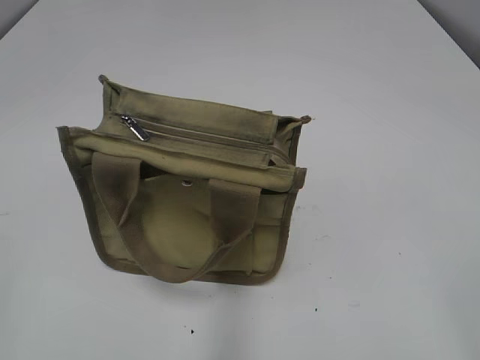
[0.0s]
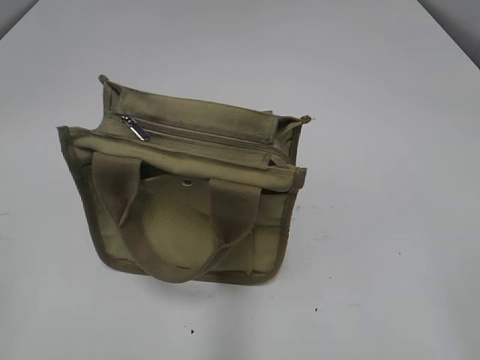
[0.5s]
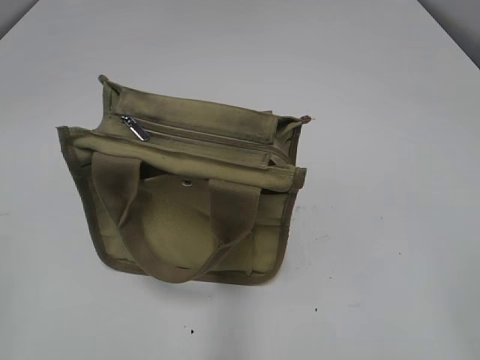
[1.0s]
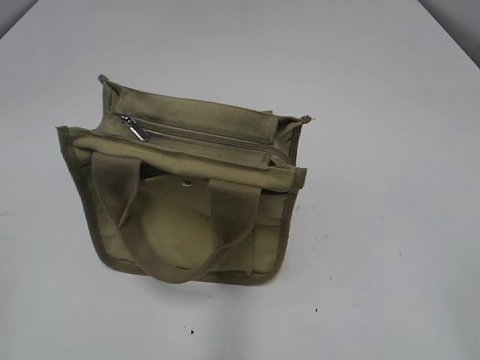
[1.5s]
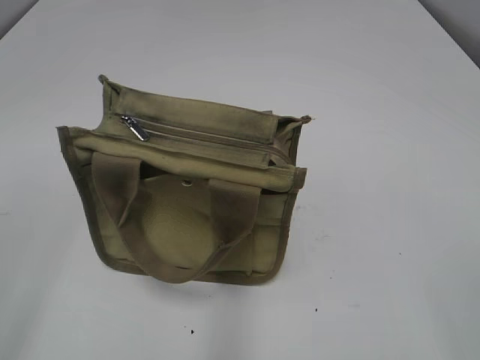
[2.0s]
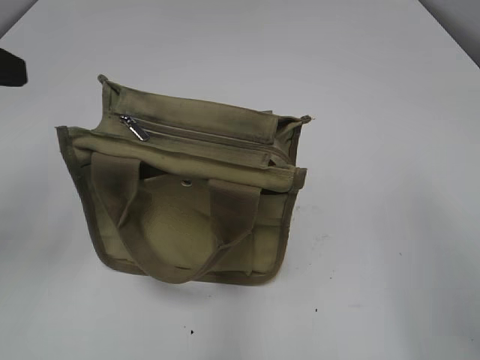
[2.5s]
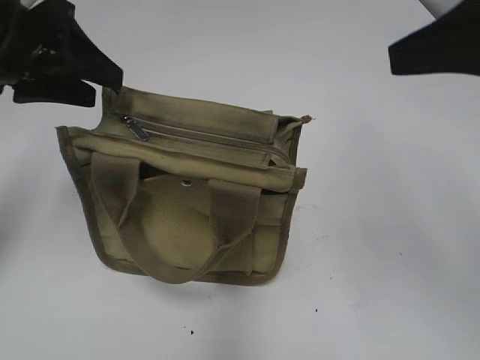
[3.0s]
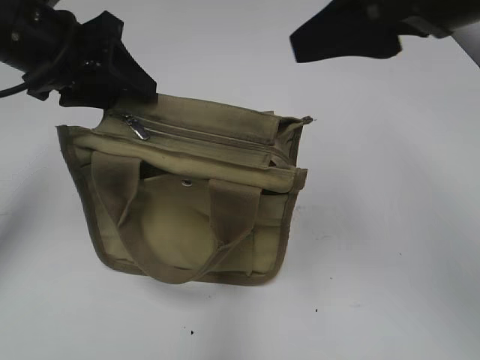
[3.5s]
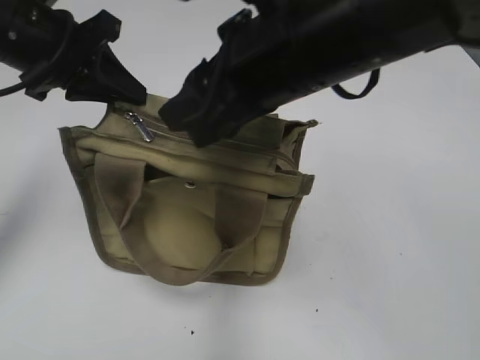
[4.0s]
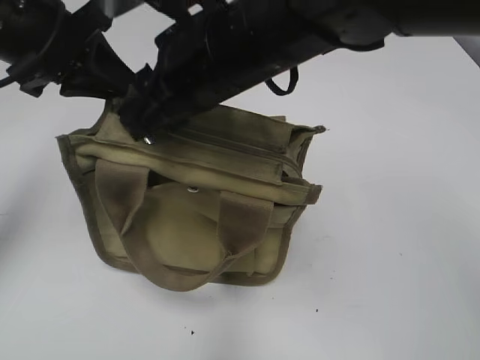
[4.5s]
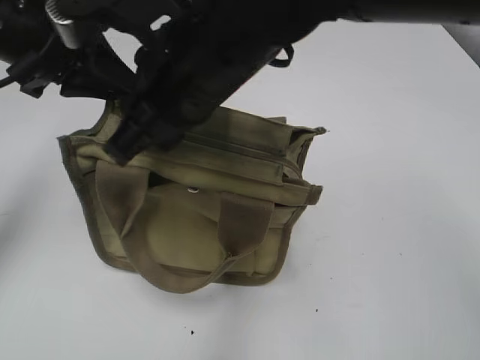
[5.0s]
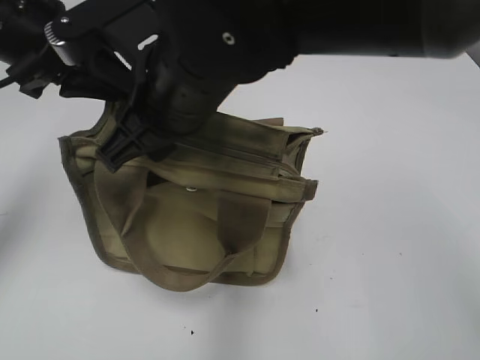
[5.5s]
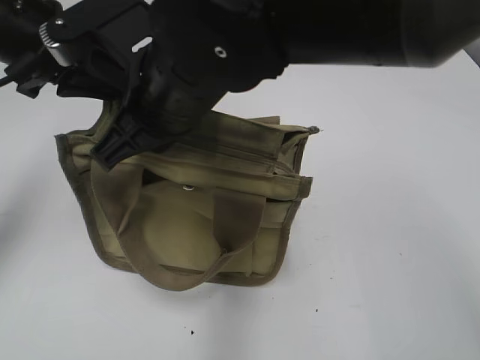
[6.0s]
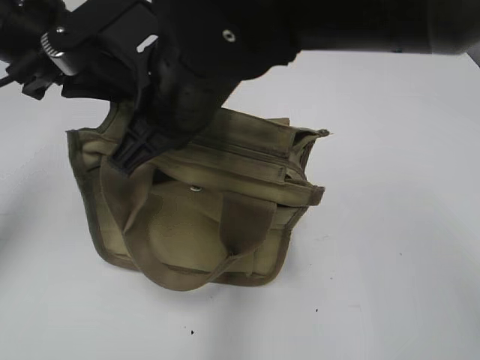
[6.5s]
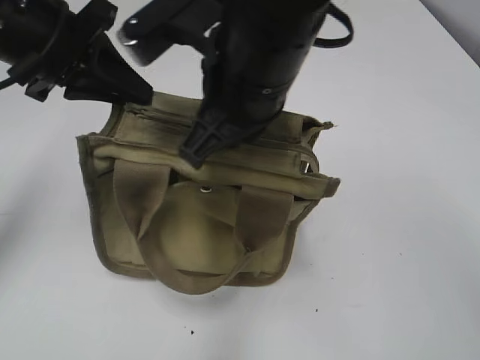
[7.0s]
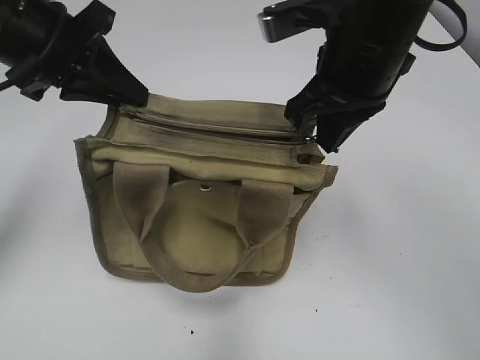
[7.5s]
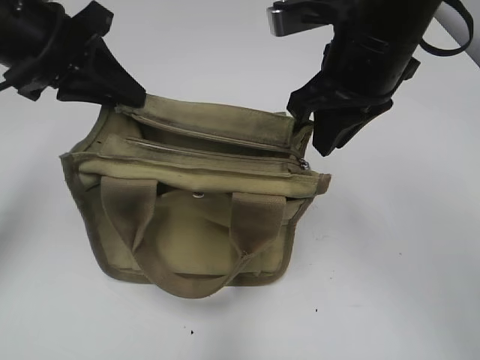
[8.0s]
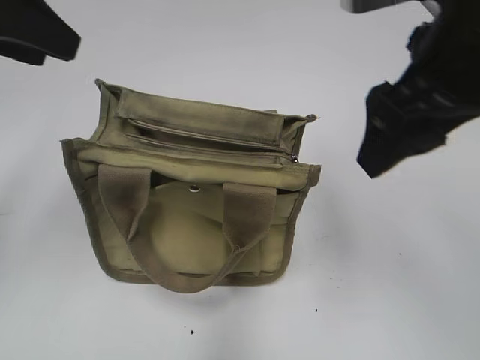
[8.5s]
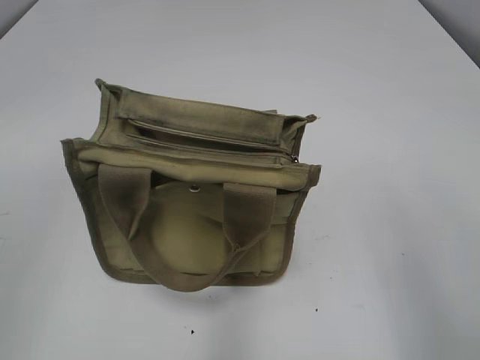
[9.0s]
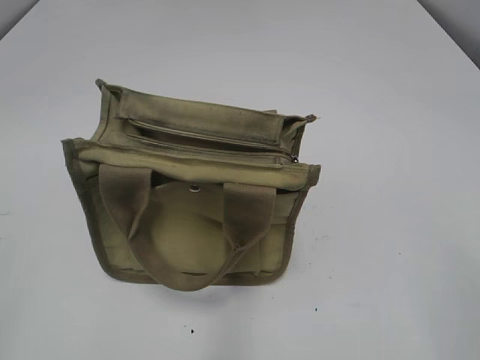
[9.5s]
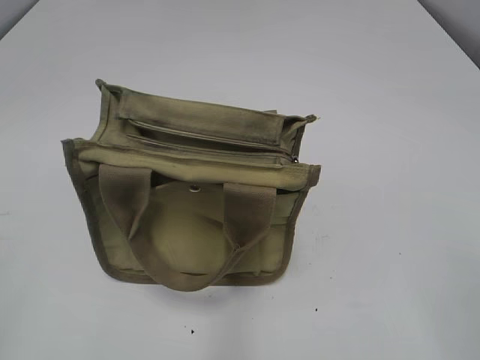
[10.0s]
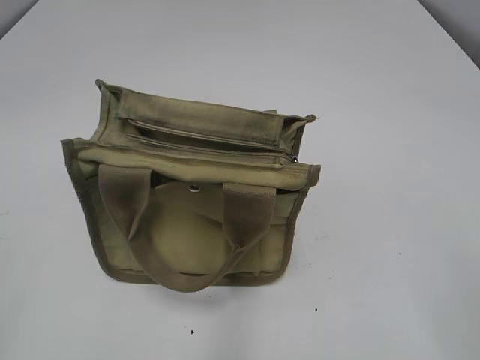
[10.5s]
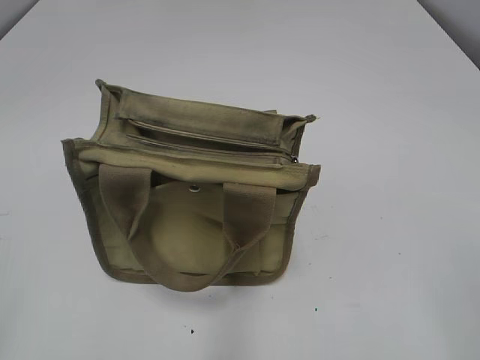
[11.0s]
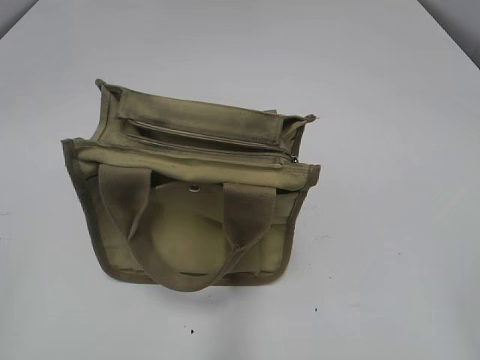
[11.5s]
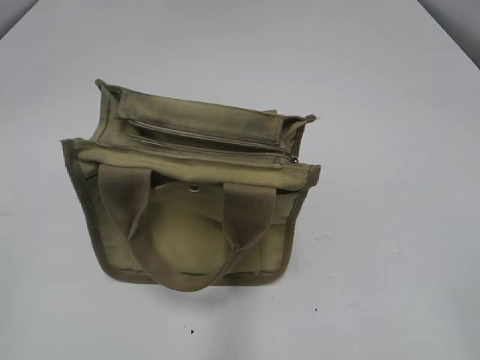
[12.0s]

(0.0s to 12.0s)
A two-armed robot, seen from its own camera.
Step, 0.0s - 7.5s: Pull open the zipper with your right hand.
2.0s - 4.0s: The left gripper shifts some 25 cm forward and to the right, and closes up; the right gripper heads forward and to the left, covering roughly 35 cm, and closes up.
4.0s - 6.0s: The right gripper is displaced to the left by some 10 cm, and closes its fingers.
6.0s - 8.0s: The right gripper shifts about 15 cm to the right, and opens.
8.0s - 10.0s: The right gripper shifts approximately 35 cm backward and to the right. Meanwhile the left gripper shifts roughly 35 cm backward and to the left, and opens.

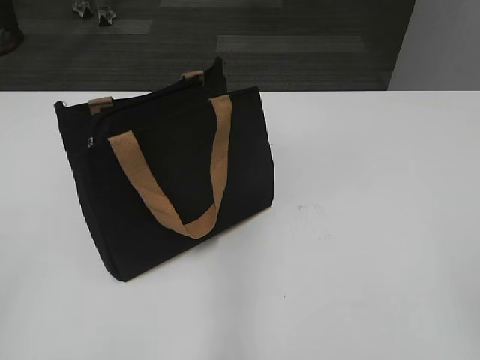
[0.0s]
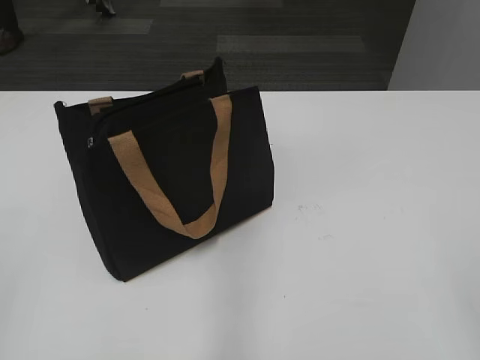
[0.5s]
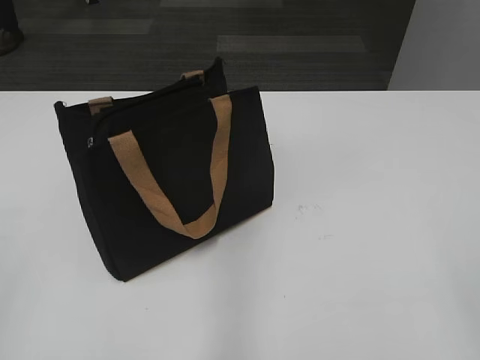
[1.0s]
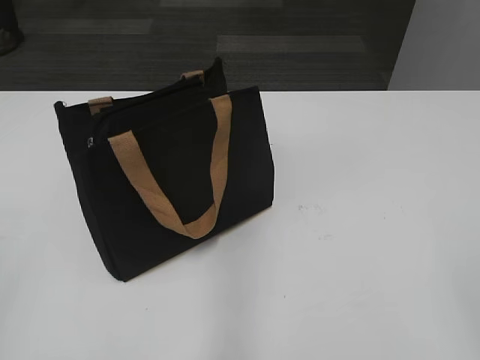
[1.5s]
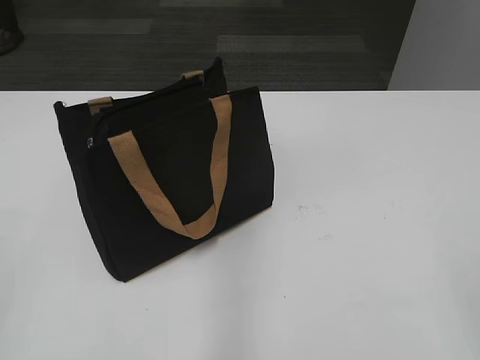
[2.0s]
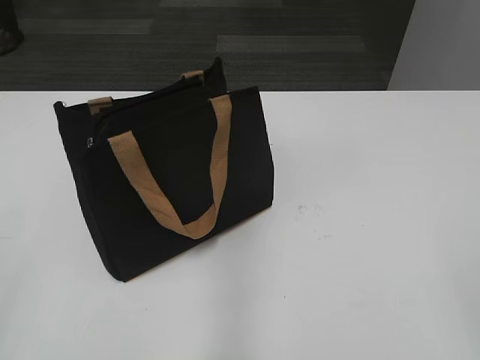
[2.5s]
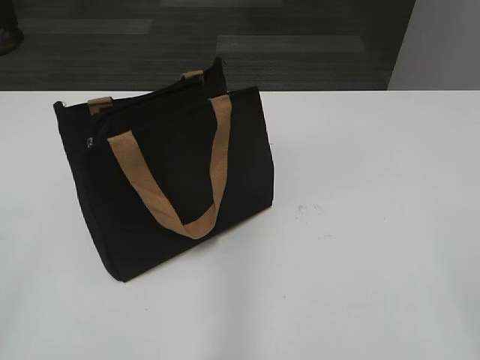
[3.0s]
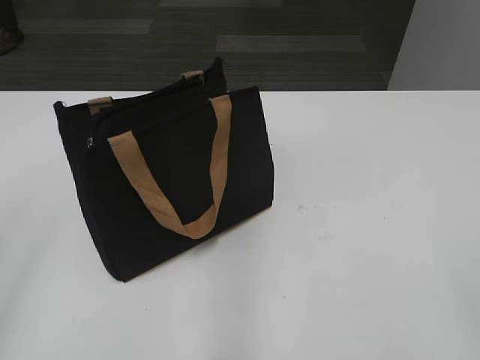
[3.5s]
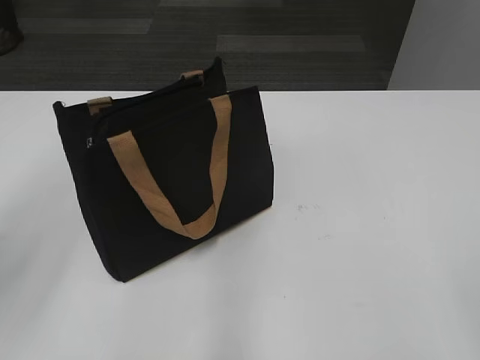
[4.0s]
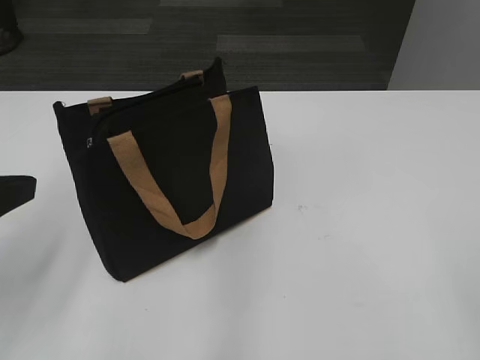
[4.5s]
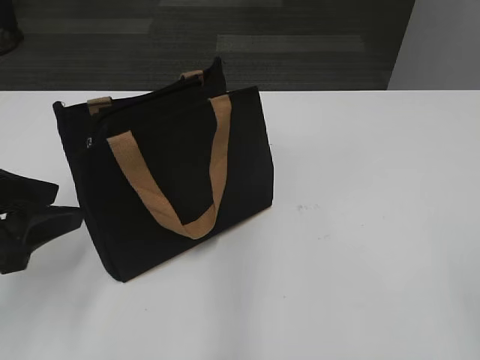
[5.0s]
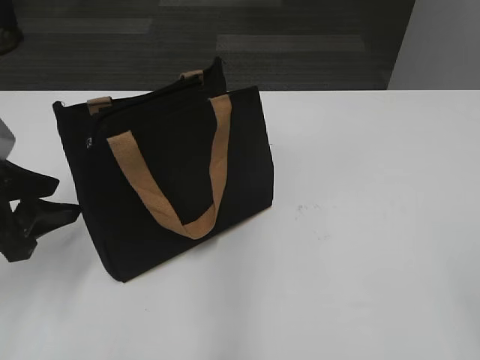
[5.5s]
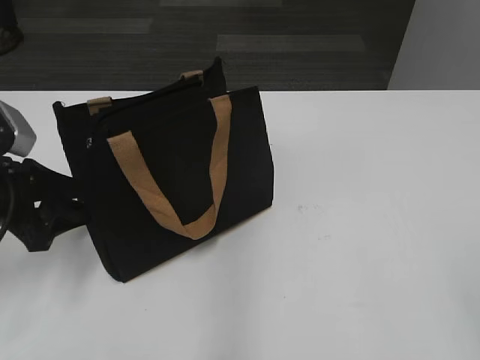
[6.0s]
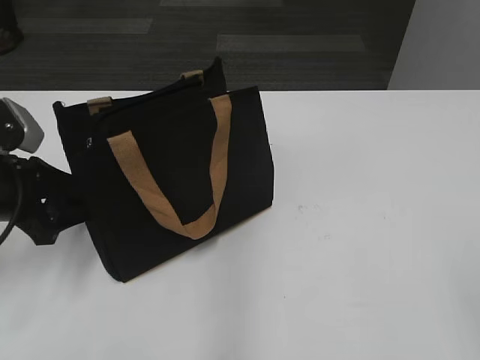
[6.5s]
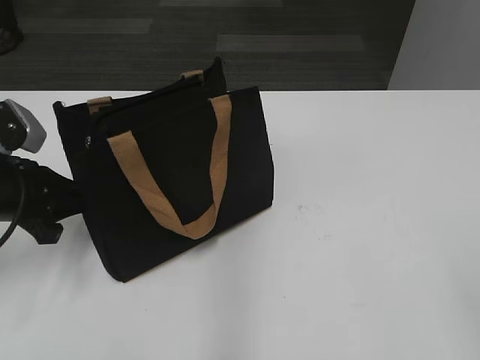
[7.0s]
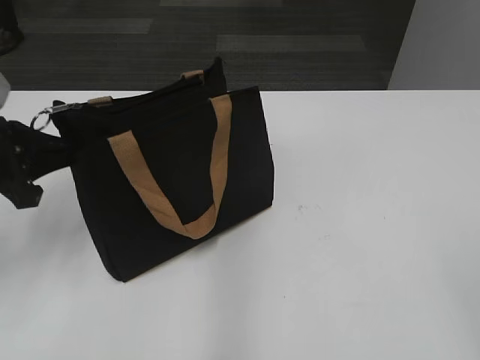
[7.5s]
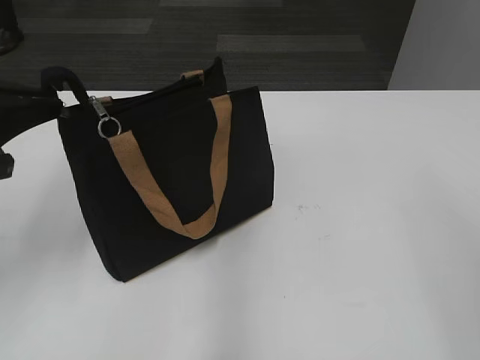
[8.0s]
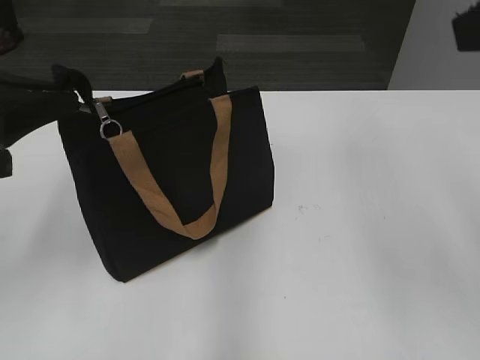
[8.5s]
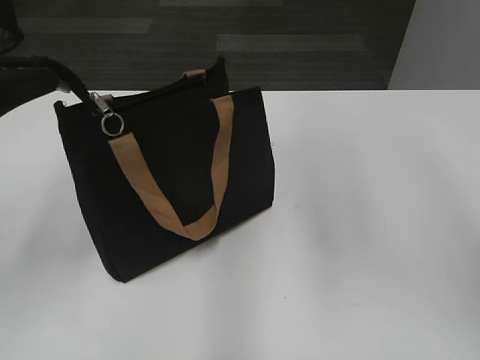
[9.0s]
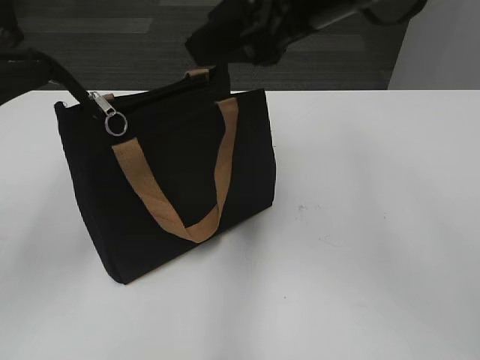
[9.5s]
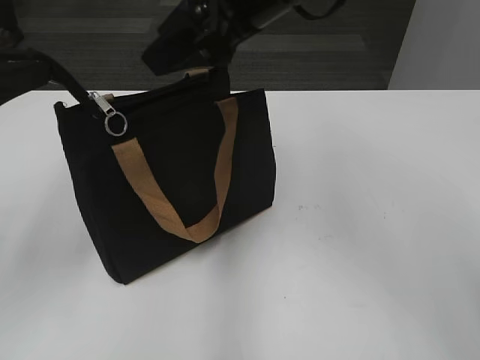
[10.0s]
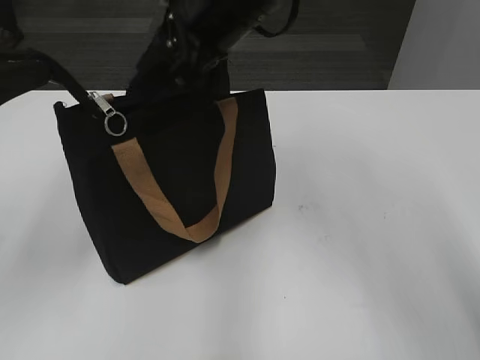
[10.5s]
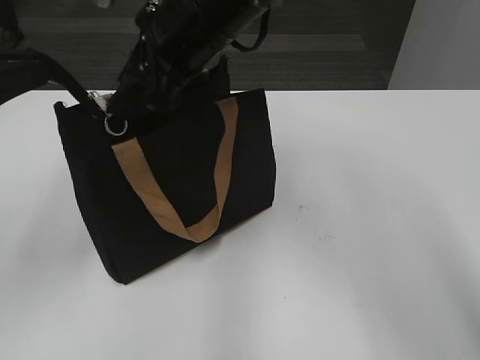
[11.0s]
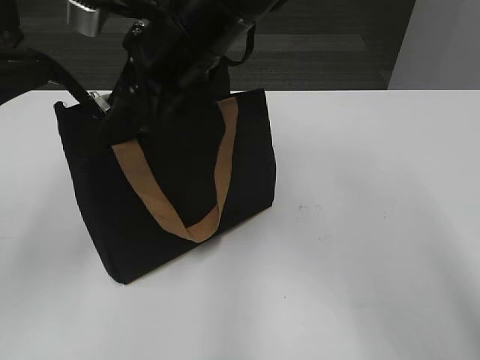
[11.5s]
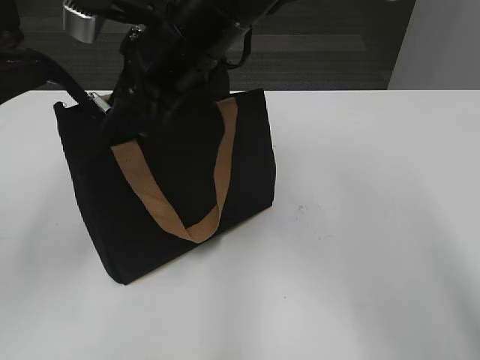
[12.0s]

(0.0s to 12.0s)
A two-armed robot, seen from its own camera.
2.0s - 4.0s: The left gripper heads forward, covering roughly 15 cm, and opens up.
4.0s - 6.0s: The left gripper moves downward and forward, some 20 cm.
6.0s - 8.0s: The left gripper moves upward, about 10 cm, and closes.
8.0s - 10.0s: The right gripper moves forward and to the left, approximately 35 cm, while the left gripper changes place by roughly 5 cm.
10.0s - 12.0s: The right gripper travels to the left and downward by about 10 cm.

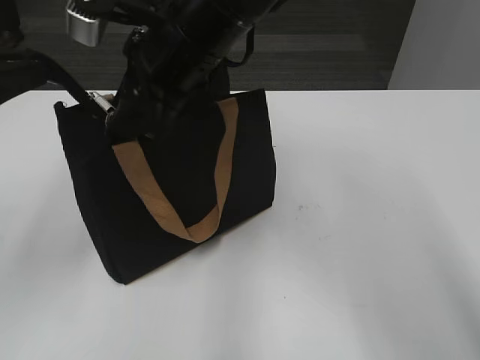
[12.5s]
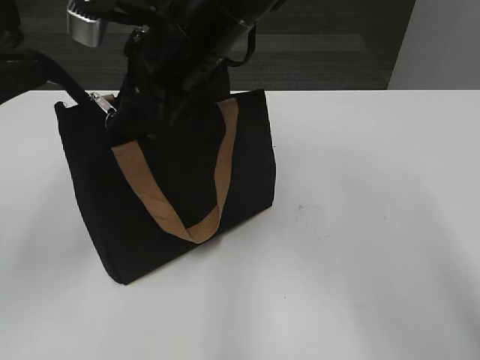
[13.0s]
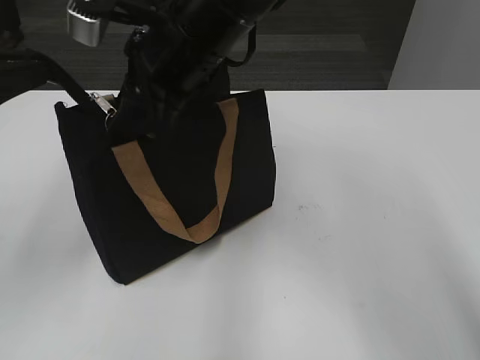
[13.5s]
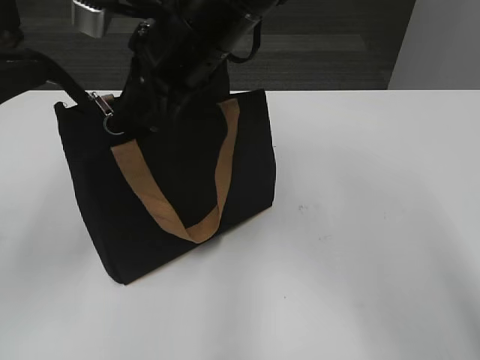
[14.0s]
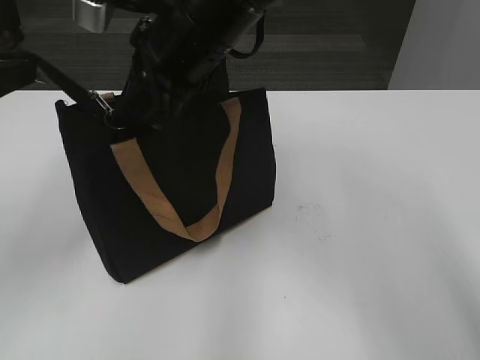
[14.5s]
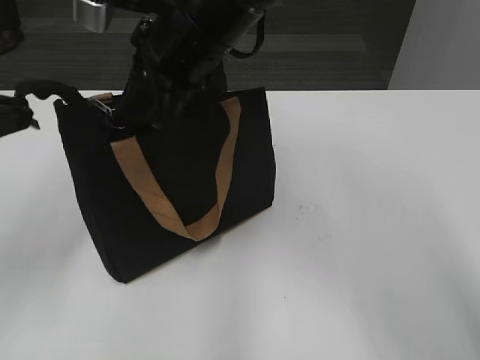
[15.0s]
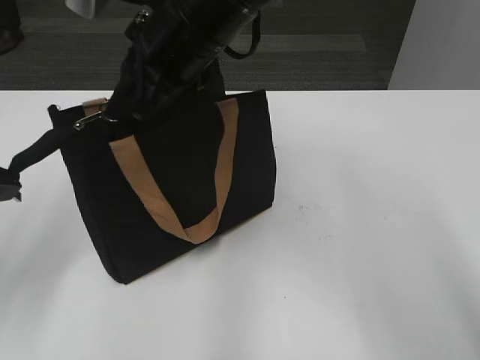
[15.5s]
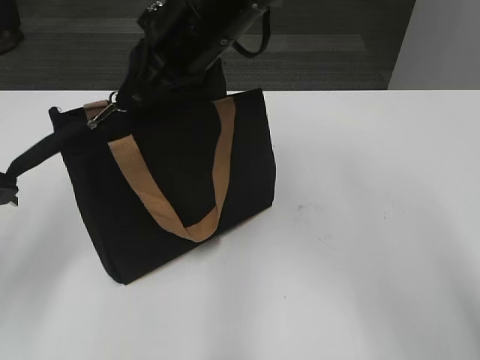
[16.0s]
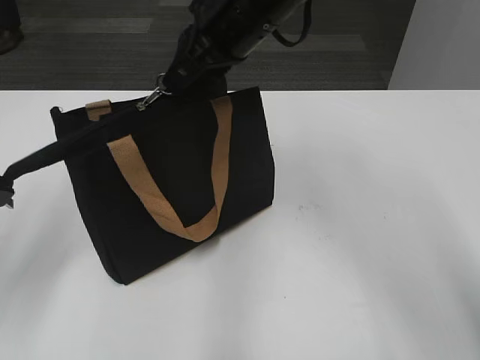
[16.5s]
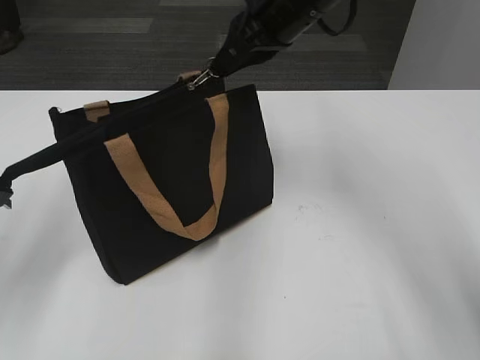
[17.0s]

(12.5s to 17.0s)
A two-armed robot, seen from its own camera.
12.5s - 14.5s: The right gripper closes up.
14.5s - 17.0s: The right gripper travels to the right and forward by about 10 cm.
